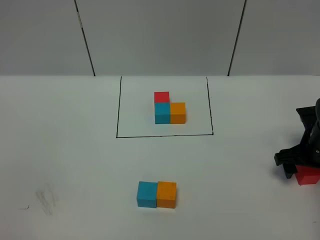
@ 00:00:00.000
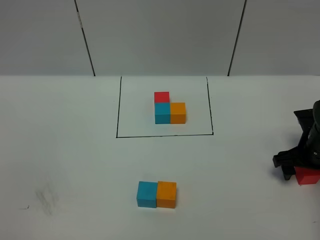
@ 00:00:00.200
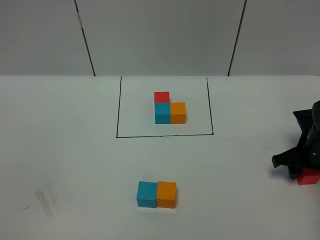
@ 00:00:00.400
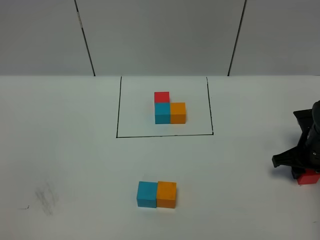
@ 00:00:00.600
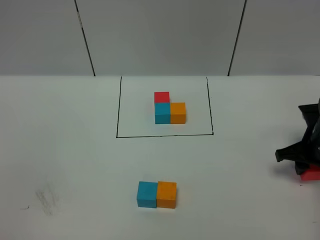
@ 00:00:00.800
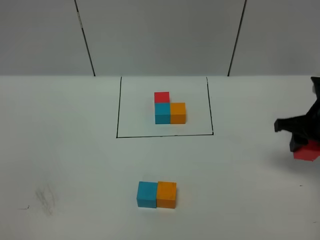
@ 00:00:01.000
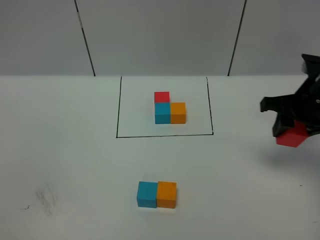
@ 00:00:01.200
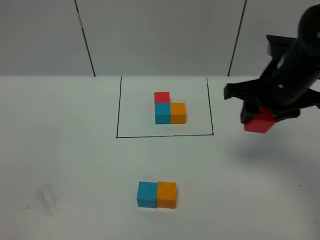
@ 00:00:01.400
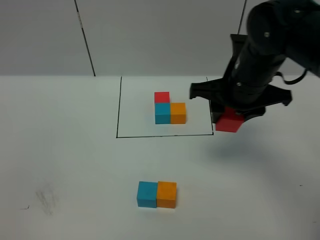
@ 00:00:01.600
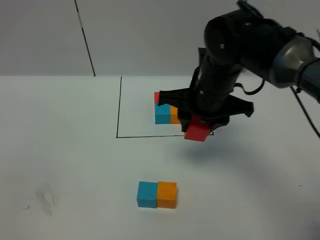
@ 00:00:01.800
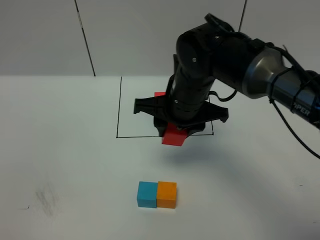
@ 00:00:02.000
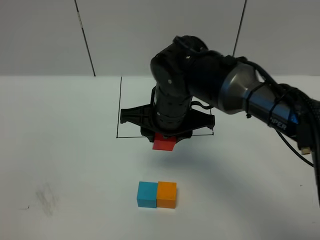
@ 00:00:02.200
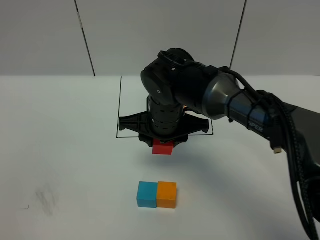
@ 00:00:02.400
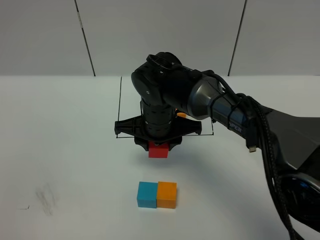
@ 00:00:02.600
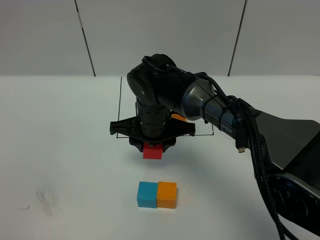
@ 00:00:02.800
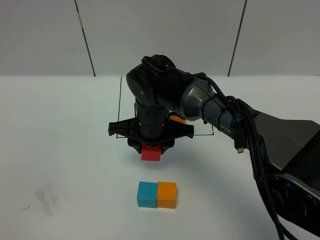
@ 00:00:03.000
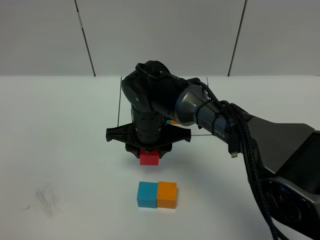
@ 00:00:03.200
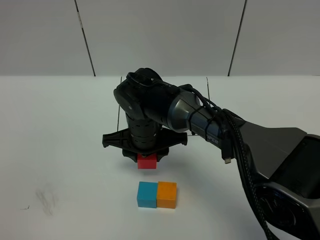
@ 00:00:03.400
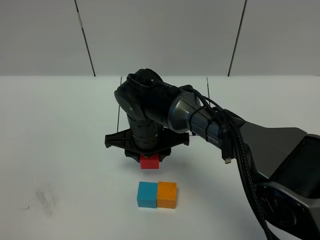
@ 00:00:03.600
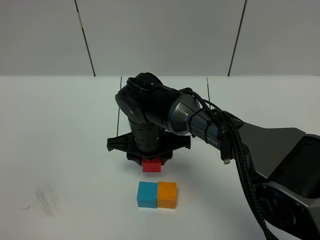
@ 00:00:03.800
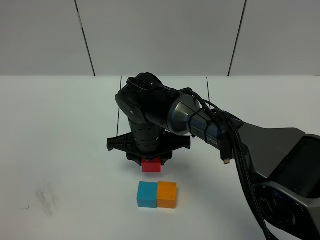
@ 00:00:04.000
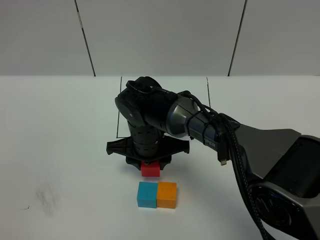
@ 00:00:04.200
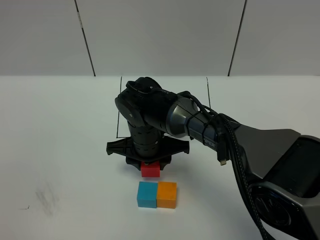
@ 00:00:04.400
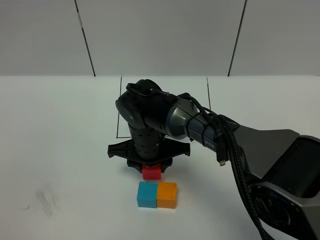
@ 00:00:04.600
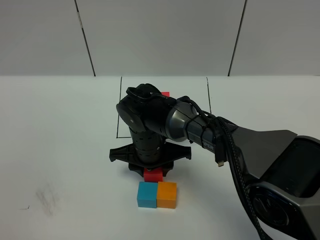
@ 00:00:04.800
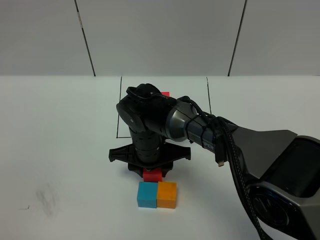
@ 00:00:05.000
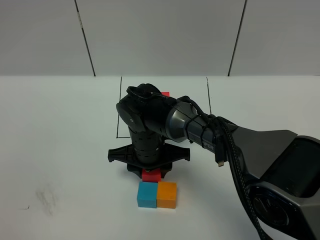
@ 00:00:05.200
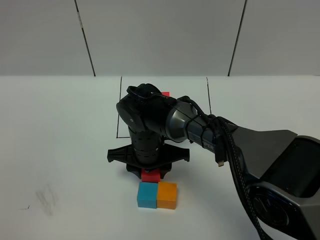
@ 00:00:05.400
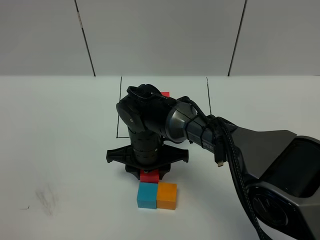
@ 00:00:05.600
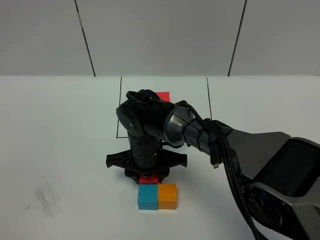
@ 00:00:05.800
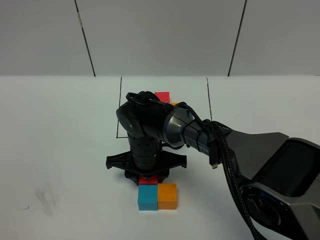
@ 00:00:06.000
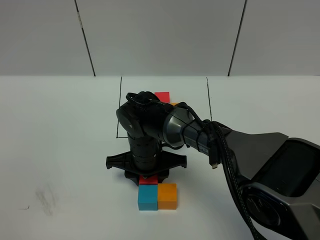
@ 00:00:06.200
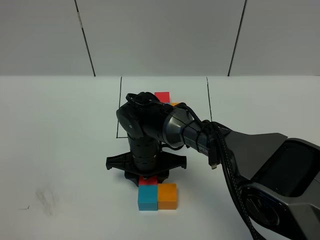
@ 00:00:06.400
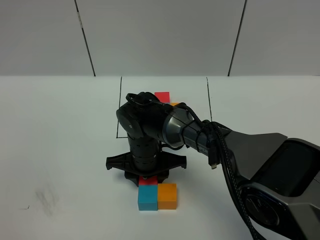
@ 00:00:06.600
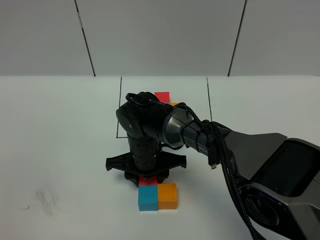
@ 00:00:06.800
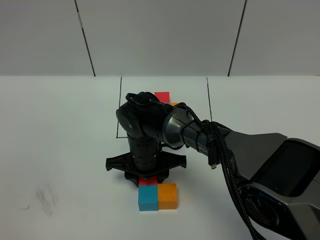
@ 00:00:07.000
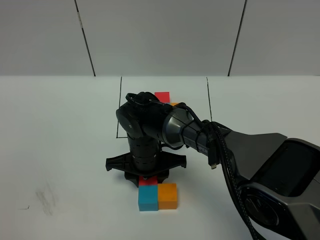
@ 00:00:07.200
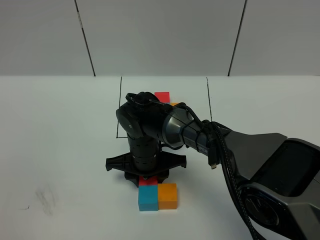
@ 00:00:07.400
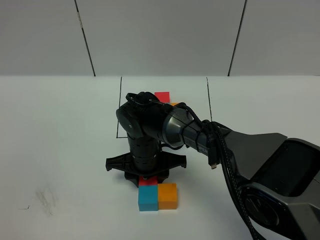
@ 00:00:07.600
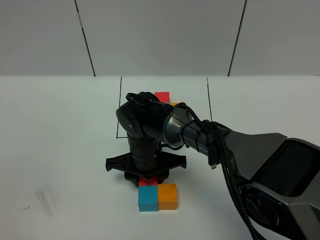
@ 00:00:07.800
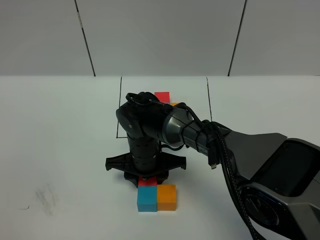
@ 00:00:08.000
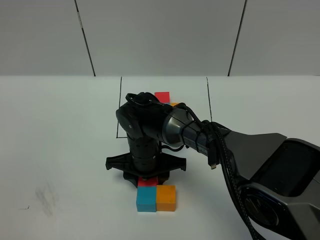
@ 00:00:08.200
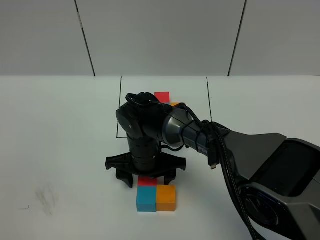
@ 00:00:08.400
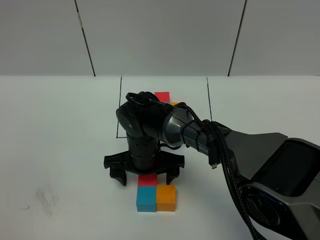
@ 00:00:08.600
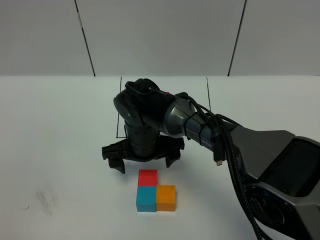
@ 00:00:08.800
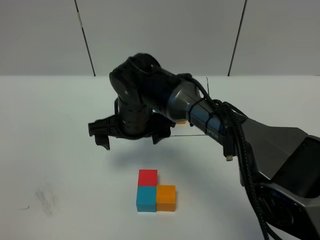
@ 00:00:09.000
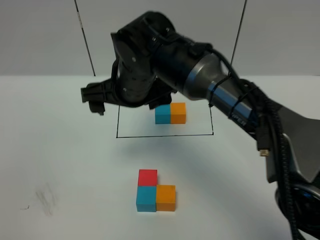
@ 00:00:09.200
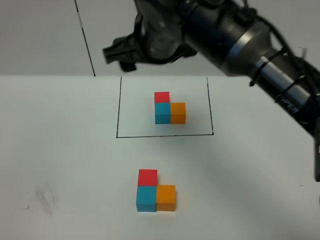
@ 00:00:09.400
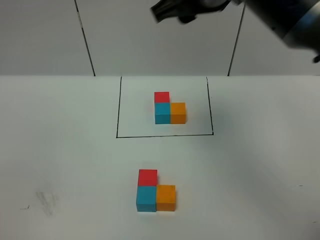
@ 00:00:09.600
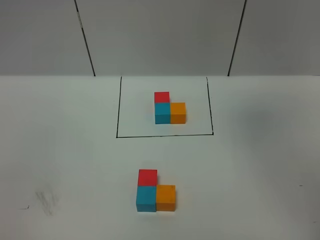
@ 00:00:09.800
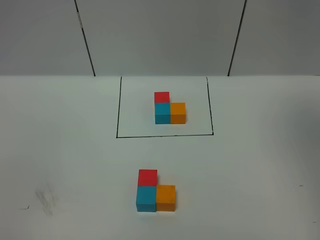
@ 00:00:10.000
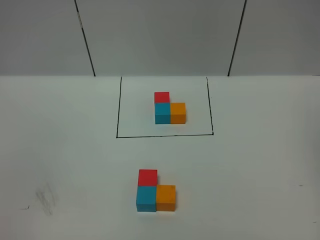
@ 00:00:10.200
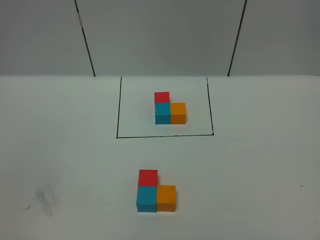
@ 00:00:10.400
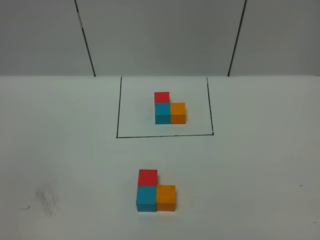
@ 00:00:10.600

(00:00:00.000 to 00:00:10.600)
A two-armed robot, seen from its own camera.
Task of the whole recording: According to the building block template in front, assemble the scattered blocks together.
Step, 00:00:00.000 - 00:00:08.600: Put the red cube on the behind of the blue cube.
00:00:00.000 - 00:00:01.600: The right gripper is displaced to the left and upward by about 25 cm, and closes.
00:00:01.600 - 00:00:03.000: The right gripper heads to the left and downward, covering roughly 20 cm.
00:00:03.000 - 00:00:04.600: The grippers move only a little.
00:00:04.600 - 00:00:06.000: The grippers stay close to where they were, moving slightly.
00:00:06.000 - 00:00:07.600: Both grippers stay put.
00:00:07.600 - 00:00:09.000: The right gripper moves upward, approximately 10 cm, and opens.
00:00:09.000 - 00:00:10.600: The right gripper shifts approximately 60 cm to the right, backward and upward, and closes its fingers.
